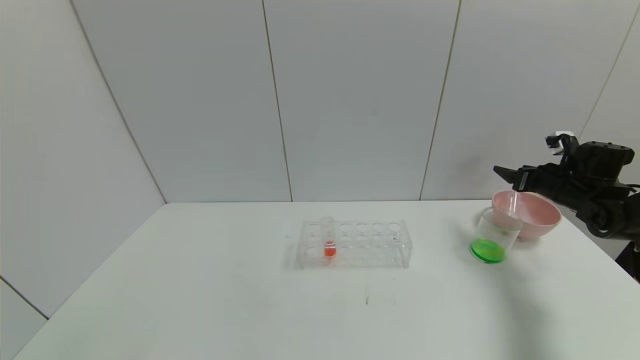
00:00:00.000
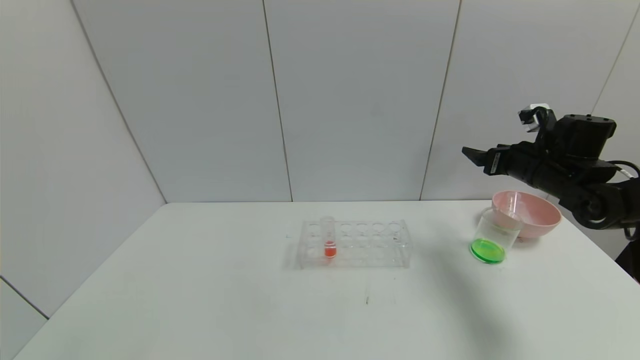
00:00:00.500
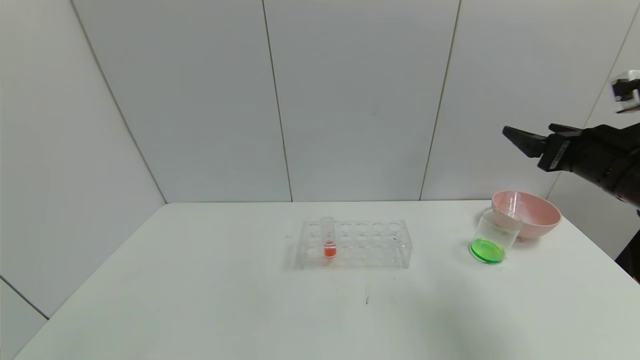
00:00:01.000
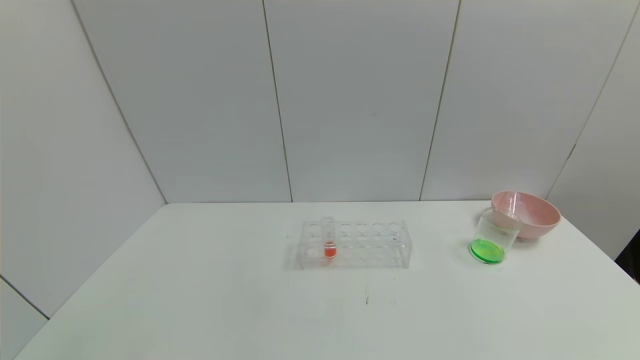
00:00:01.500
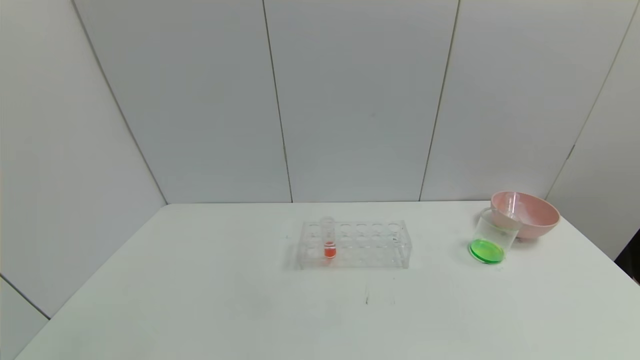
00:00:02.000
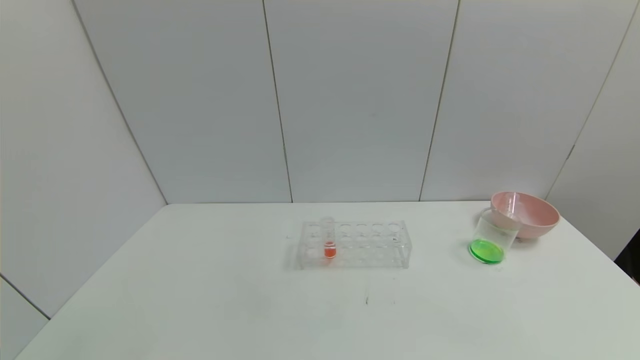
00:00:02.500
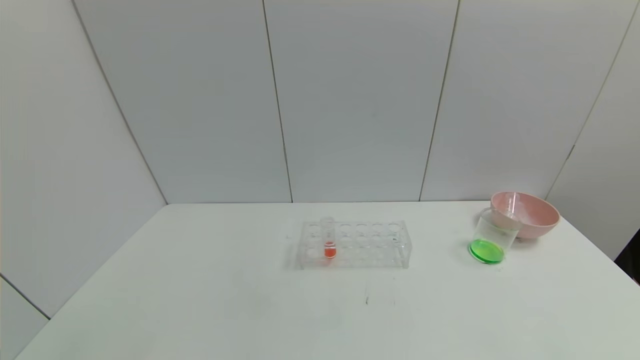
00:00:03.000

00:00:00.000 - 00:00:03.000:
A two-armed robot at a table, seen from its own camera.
Task of the whole recording: pick up the test tube with yellow pigment and the test tube with blue pigment by grippers and pour them into the beaker.
00:00:00.000 - 00:00:01.500: The right gripper heads backward and upward, covering about 35 cm.
